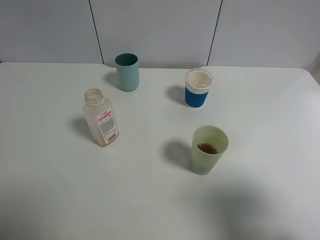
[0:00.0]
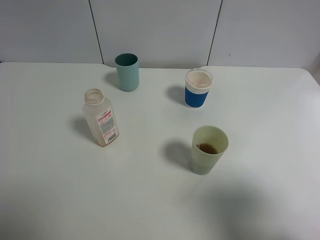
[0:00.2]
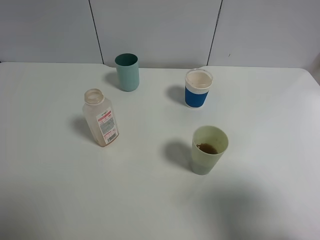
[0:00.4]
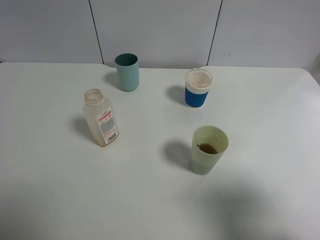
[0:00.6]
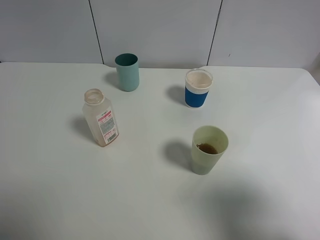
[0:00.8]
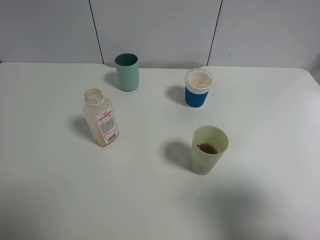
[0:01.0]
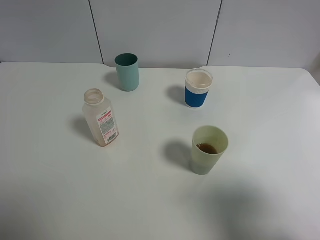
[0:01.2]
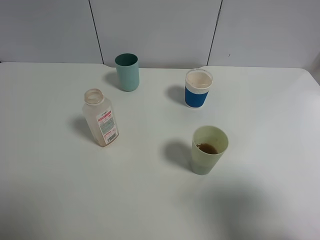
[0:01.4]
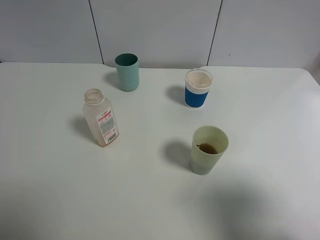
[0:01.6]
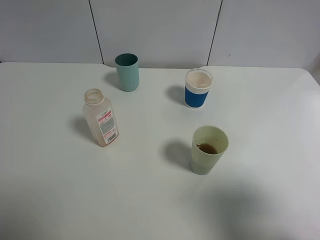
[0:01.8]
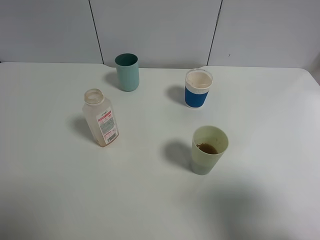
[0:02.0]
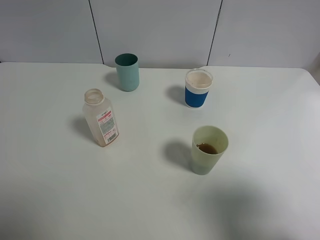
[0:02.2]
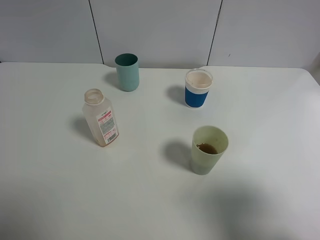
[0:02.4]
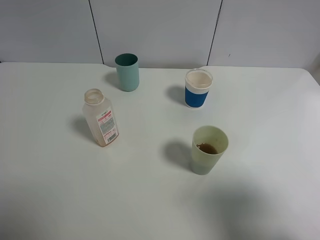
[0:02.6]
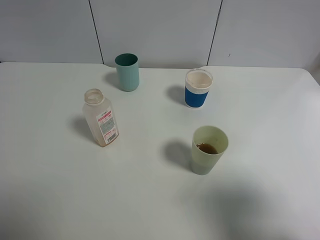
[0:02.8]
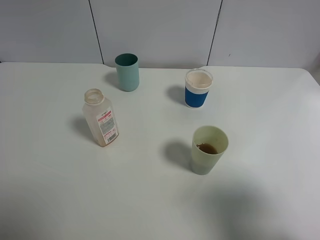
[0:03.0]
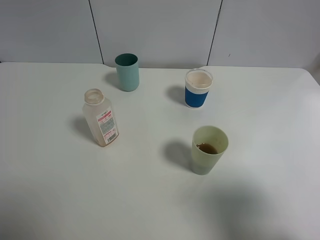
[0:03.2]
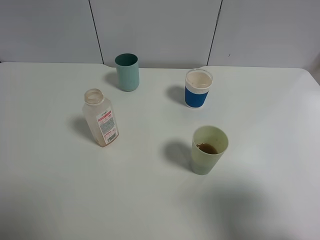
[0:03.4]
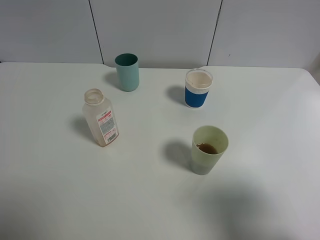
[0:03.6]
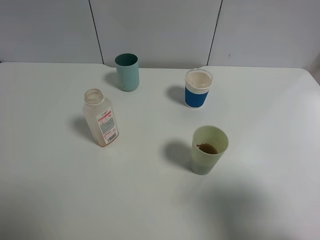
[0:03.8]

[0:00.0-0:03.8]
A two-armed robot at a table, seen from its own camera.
Task of the whole recording: use a gripper to hold the bottle of the drink and pour it into a random cup.
0:01.2 to 0:03.8: Both grippers stay put.
